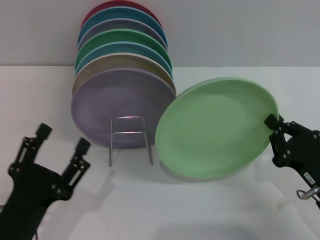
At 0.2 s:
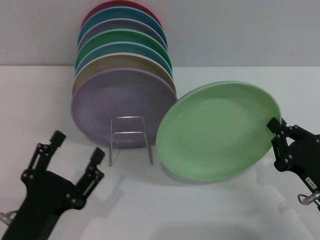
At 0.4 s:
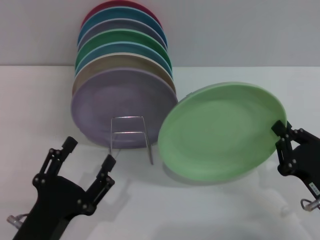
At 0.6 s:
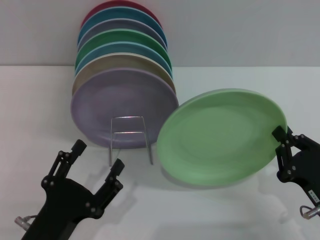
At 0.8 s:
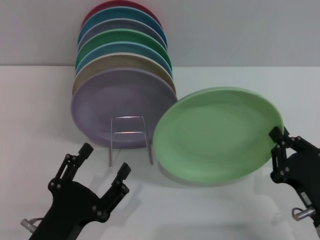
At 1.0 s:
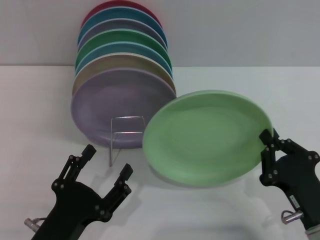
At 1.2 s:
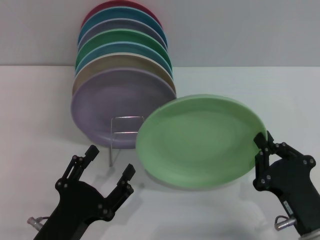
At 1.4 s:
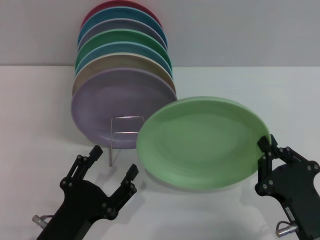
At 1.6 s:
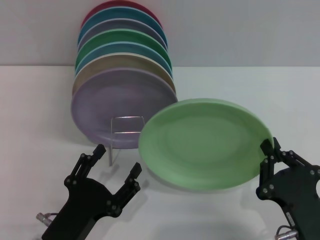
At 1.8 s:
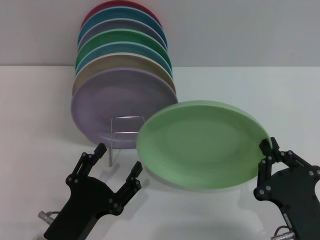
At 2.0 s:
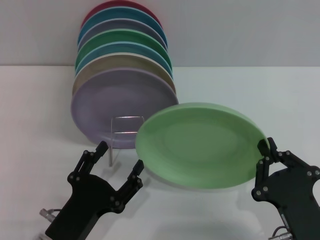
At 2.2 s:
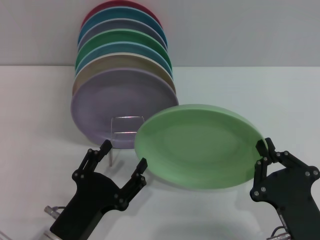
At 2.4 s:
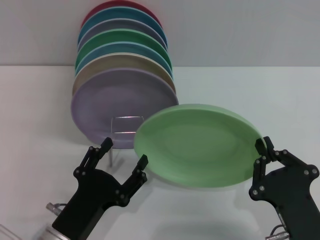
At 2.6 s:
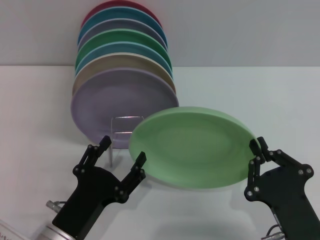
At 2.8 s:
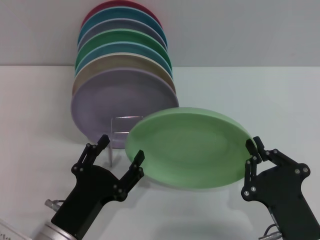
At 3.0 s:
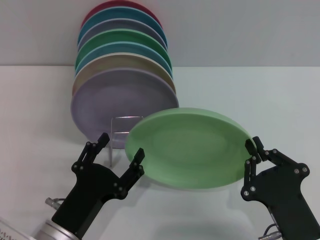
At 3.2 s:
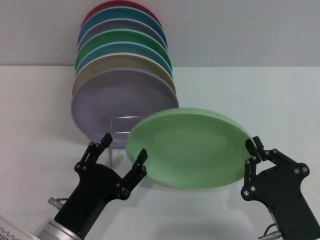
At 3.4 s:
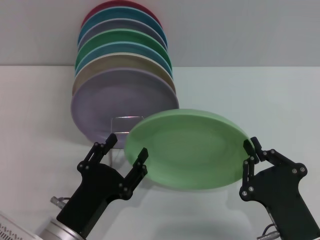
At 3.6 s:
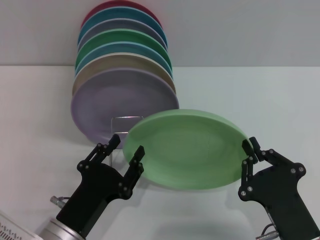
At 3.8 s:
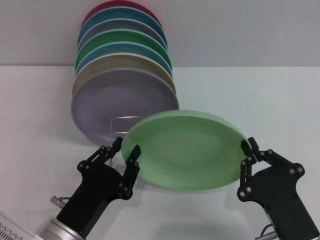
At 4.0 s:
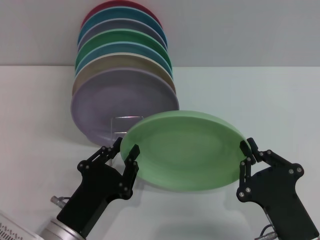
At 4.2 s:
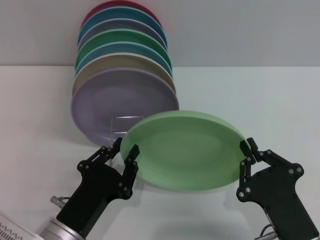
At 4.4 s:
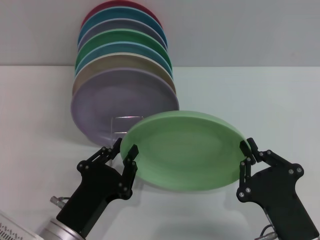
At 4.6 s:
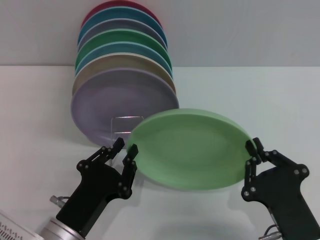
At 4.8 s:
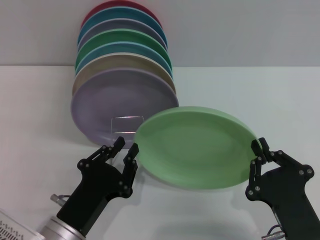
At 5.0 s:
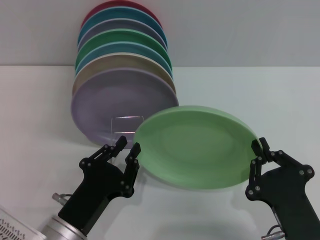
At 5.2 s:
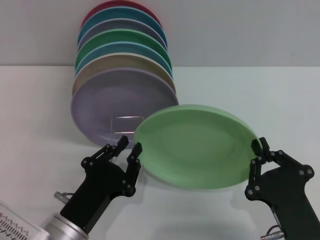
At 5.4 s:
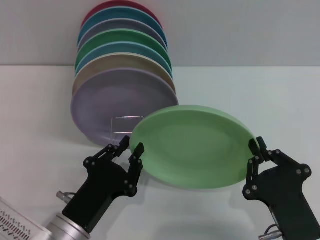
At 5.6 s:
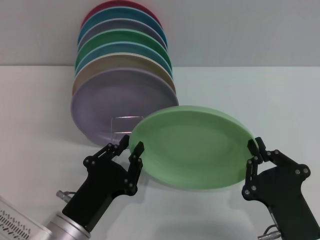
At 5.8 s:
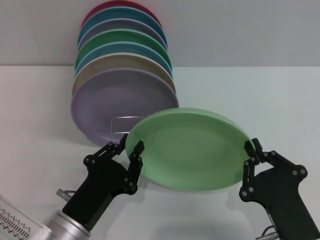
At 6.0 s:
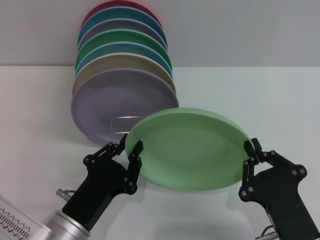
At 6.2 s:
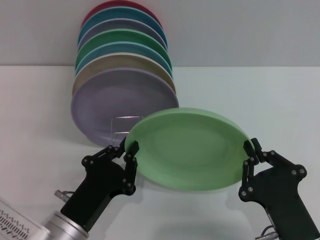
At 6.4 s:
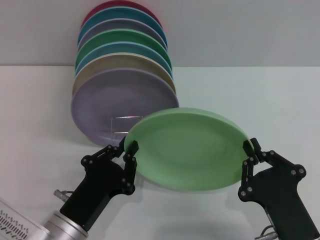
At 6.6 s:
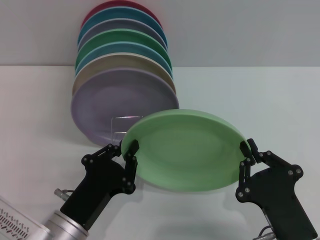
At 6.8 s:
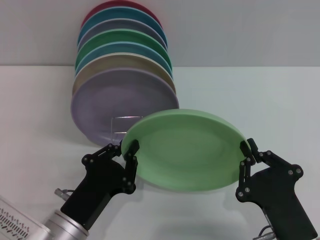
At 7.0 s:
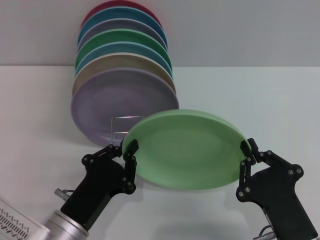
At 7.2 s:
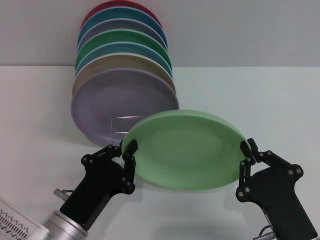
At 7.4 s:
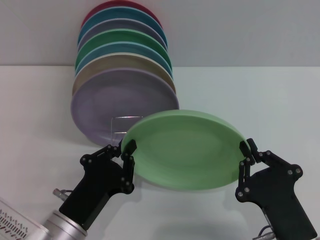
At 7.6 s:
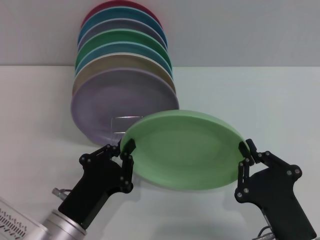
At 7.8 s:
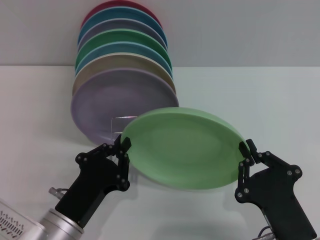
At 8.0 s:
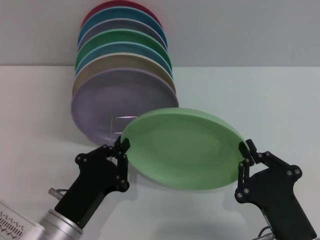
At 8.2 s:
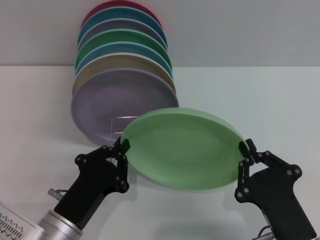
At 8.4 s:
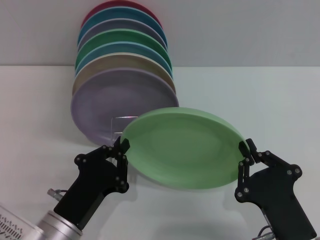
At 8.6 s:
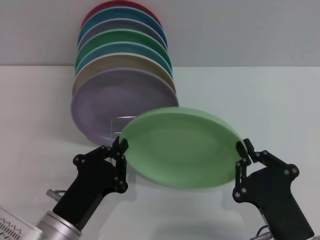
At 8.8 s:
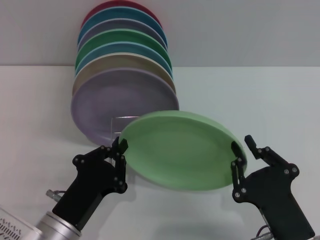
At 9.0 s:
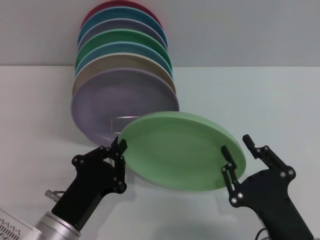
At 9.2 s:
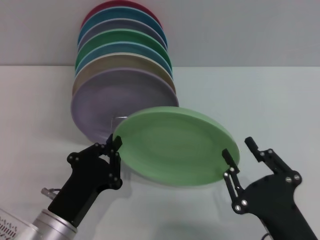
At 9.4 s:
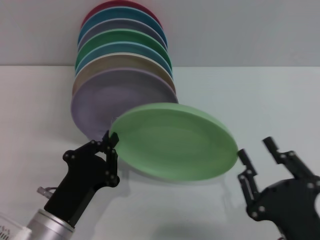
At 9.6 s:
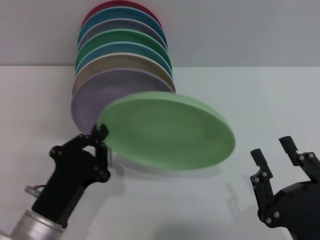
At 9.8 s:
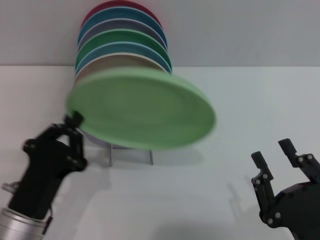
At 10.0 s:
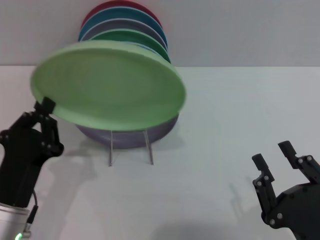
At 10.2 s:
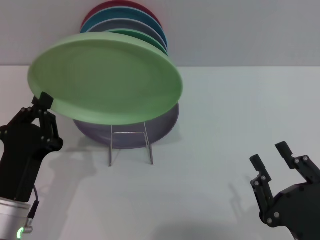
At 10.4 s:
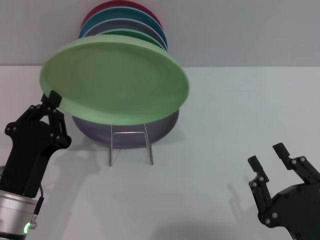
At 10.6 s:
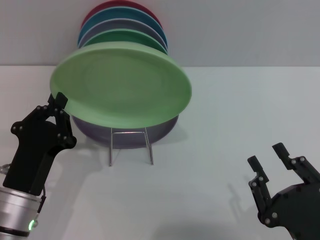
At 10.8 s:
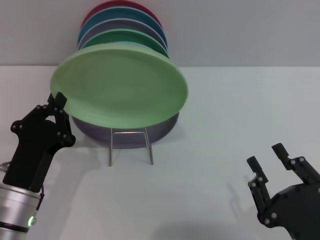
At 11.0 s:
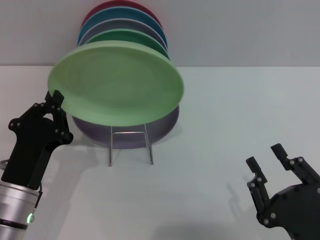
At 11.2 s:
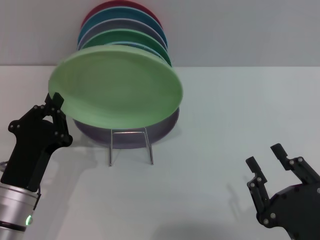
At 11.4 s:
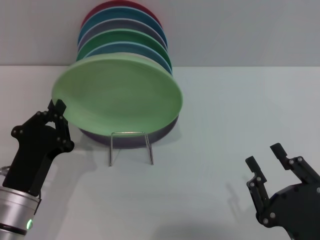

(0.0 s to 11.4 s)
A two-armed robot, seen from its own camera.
Task of the whole recording: Grip the plate with one hand, pass it to the other, then set it on the shelf.
Step, 0.0 s - 10.2 s: Pass the plate from the right gripper to the left gripper.
0.0 s - 1.4 s: The right gripper goes roughly 10 cm to the left and backward.
1.4 s - 2.8 s: There are only small adjustments of the grippers.
2.8 s - 4.2 s: The left gripper closes.
4.2 s - 8.6 s: The two grippers keep their place.
8.6 s - 10.0 s: The right gripper opens its fingers.
10.0 s - 11.4 s: There are only small adjustments of the grippers.

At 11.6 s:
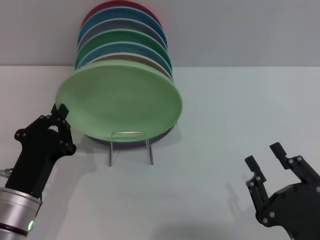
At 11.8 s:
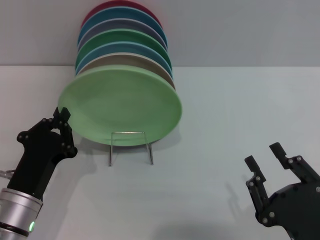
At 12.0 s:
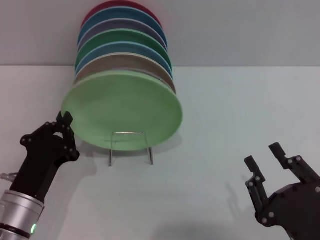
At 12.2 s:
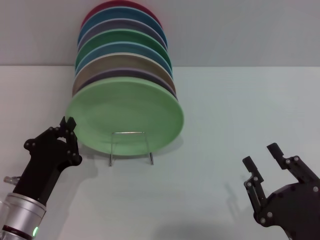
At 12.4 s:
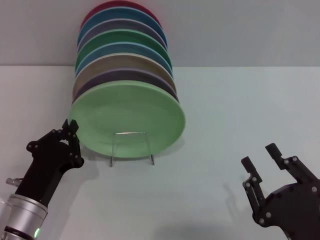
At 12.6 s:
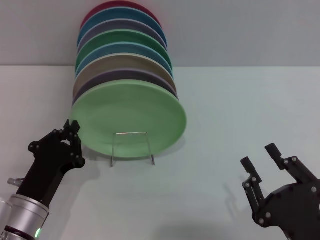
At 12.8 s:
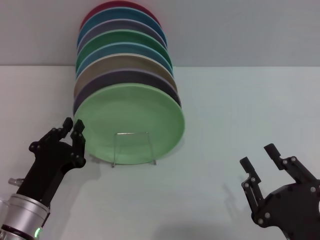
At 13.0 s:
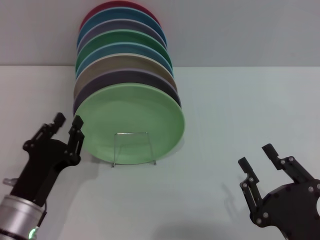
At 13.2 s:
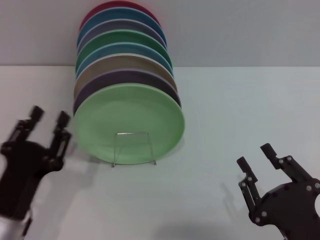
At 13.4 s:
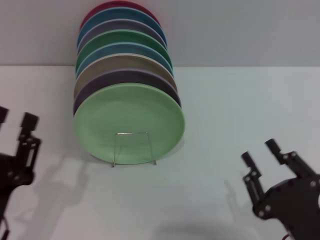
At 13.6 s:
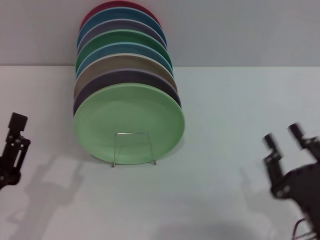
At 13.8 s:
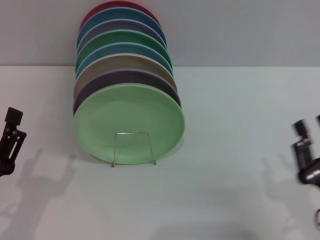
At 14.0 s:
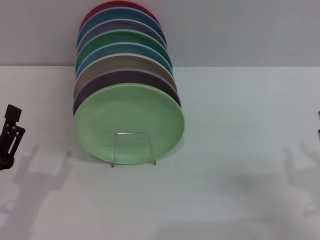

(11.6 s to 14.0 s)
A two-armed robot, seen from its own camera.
Task of the whole recording: Grip the plate with one hand, pass it to the other, then set it on the shelf.
11.6 s - 12.8 s: There are only small adjustments of the grippers.
12.8 s - 14.0 s: The right gripper is displaced to the right and forward by some 10 cm. Meanwhile the left gripper moves to the left, roughly 5 cm, and opens its fingers.
